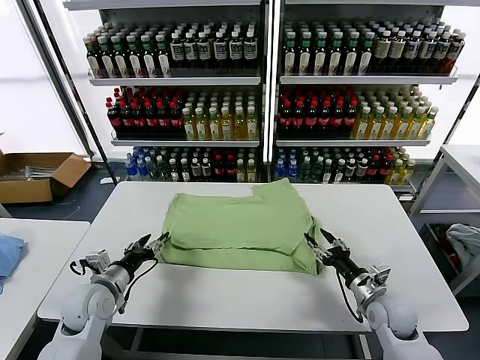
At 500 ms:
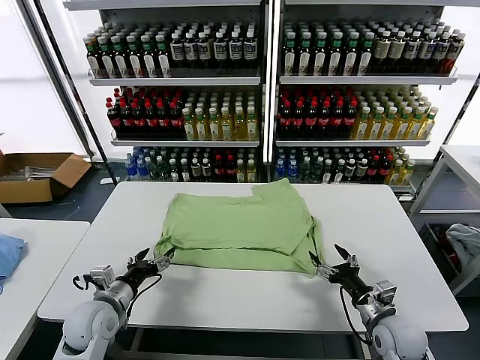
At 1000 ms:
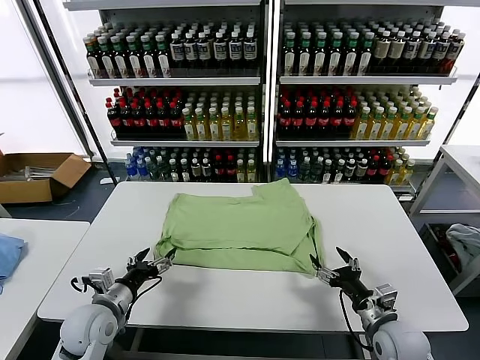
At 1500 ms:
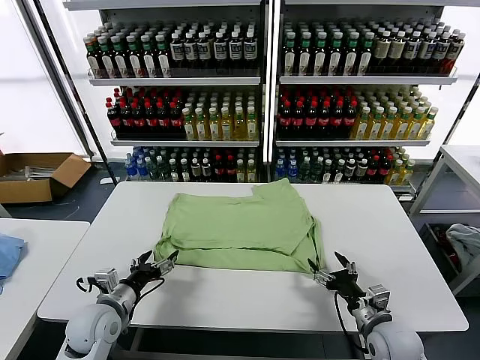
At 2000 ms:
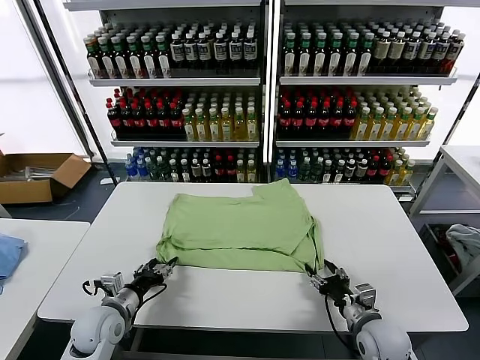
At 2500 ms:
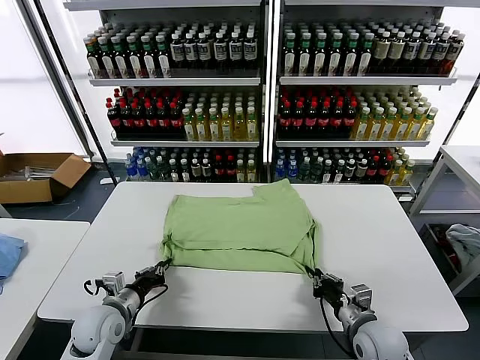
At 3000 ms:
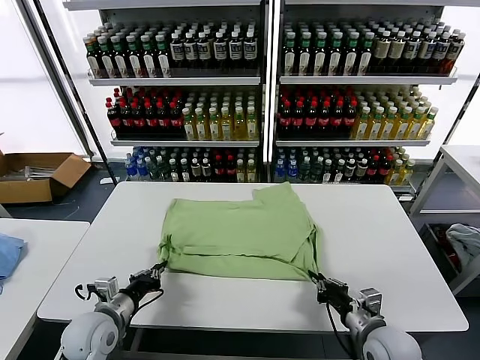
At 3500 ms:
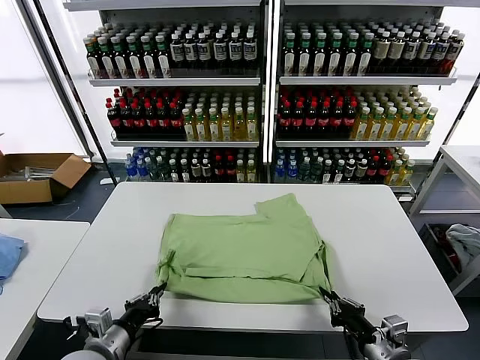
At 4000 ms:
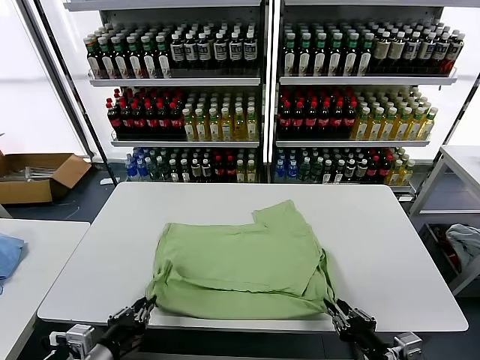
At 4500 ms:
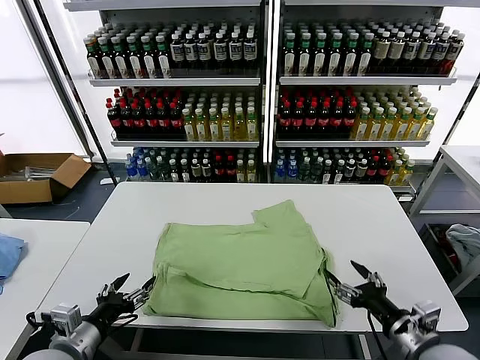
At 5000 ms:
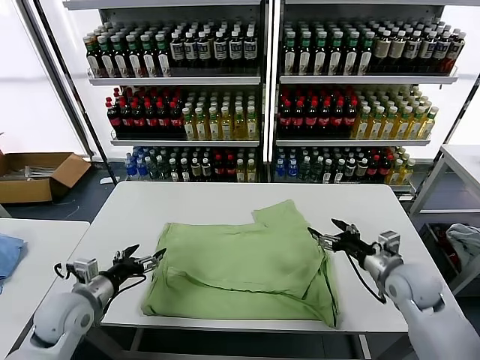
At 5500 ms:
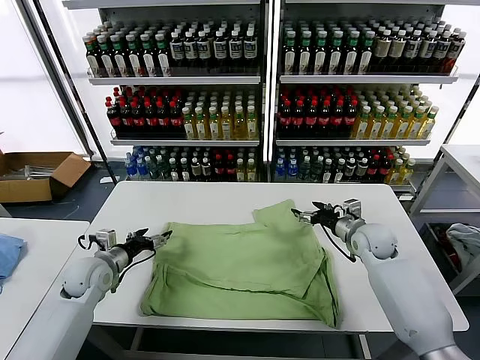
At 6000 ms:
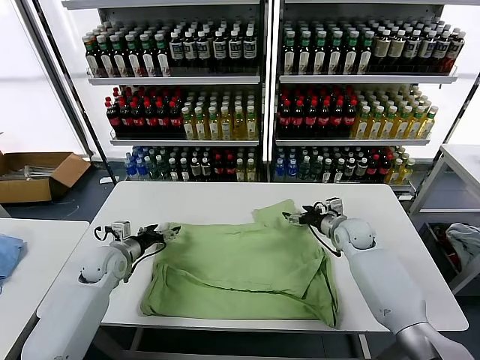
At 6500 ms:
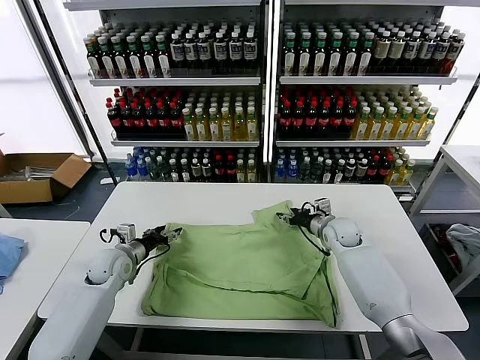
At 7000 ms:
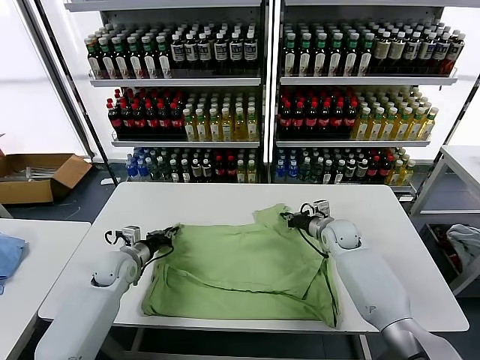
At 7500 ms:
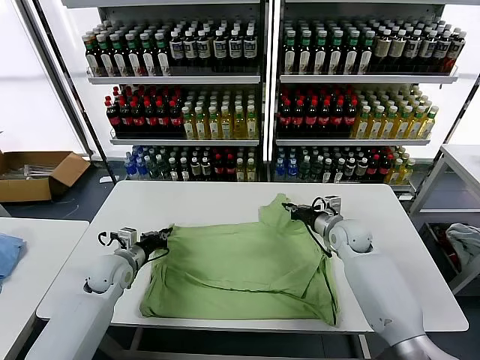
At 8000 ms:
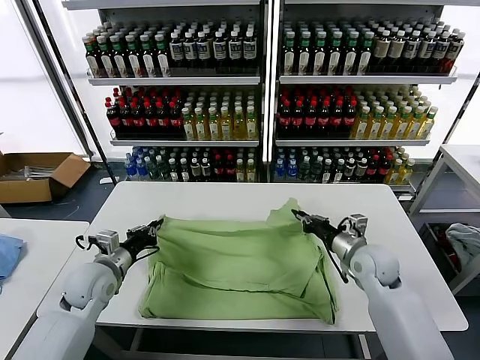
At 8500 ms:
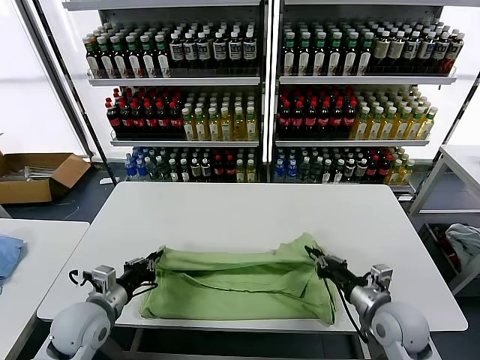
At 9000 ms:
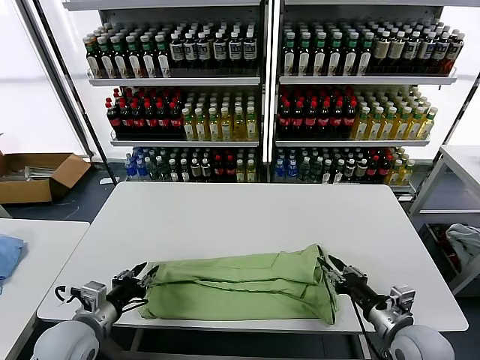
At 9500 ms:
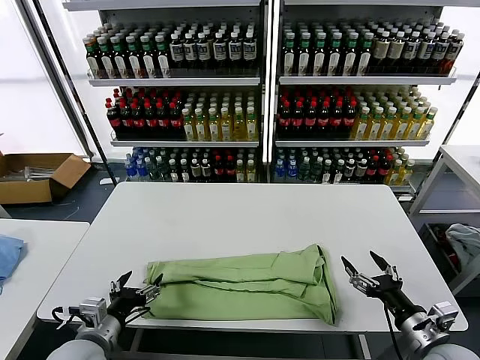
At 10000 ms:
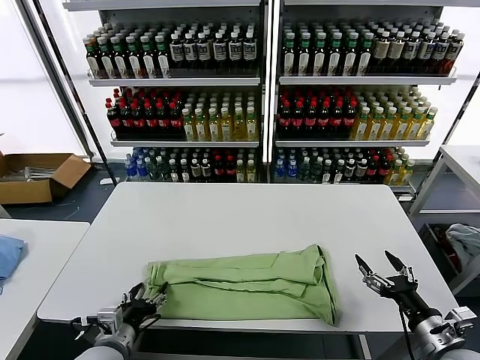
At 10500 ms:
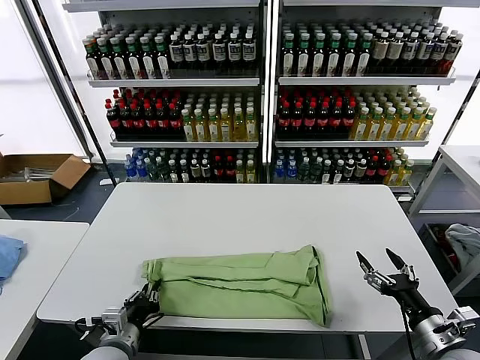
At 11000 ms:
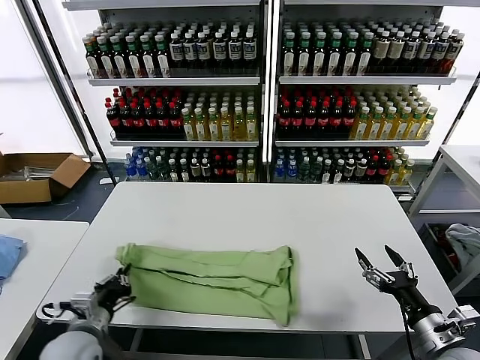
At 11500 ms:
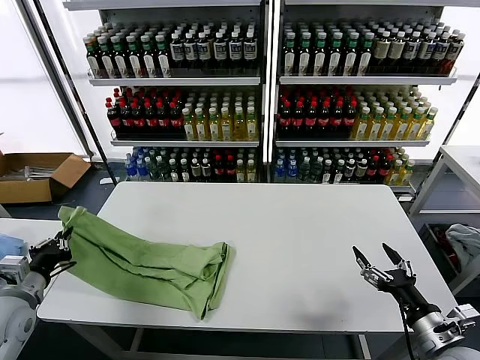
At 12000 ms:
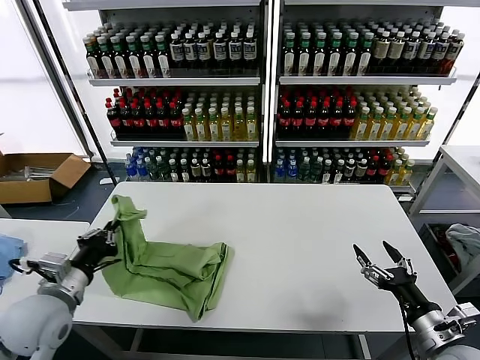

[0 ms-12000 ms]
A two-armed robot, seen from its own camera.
Task of the whole recording: fold and organize the clothes.
Step, 0 ms to 4000 ms: Drag the clothes downward with both gripper.
Step, 4500 ms to 7000 ms: use both grippers simultaneously to clamp the upper edge of the clothing fabric.
Step, 7500 ms to 9000 ms: use both grippers to drag the upper edge of the fabric backward and fold it over the lower edge.
Step, 9500 ms to 10500 ms: use the left gripper to clamp the left edge of the fabric.
0 ms to 2000 ms: The left gripper changes place by some 5 cm. Meanwhile the right gripper changes place by roughly 5 cm.
2000 ms to 4000 ms: The grippers both shift backward and upward by approximately 15 cm. The right gripper closes and opens again. Meanwhile the left gripper closes.
4000 ms to 6000 ms: Both grippers move forward, about 35 cm. The left gripper opens its fingers. Meanwhile the right gripper opens.
6000 ms to 8000 ms: The right gripper is displaced backward by about 15 cm, and closes its fingers; the left gripper moves backward, some 10 cm, and closes.
8000 ms to 10000 ms: The right gripper is displaced backward and to the right by some 20 cm, and opens up; the left gripper travels backward by roughly 15 cm, and opens.
10000 ms to 12000 ms: The left gripper heads upward and to the left, covering roughly 15 cm, and closes its fingers.

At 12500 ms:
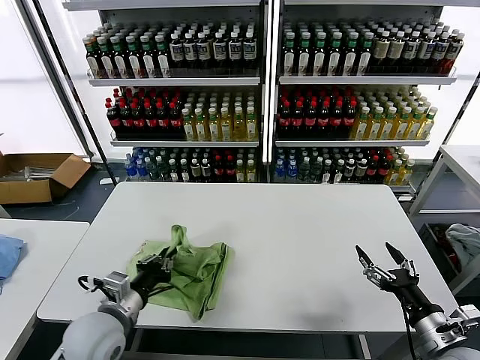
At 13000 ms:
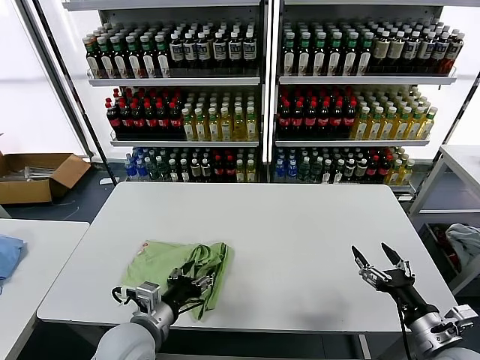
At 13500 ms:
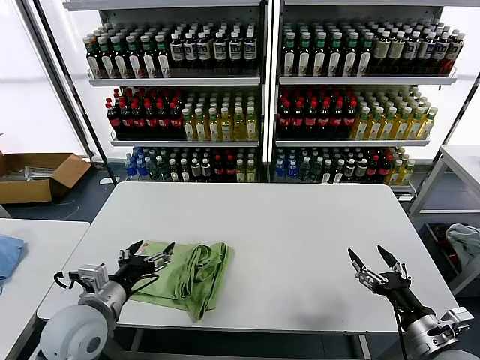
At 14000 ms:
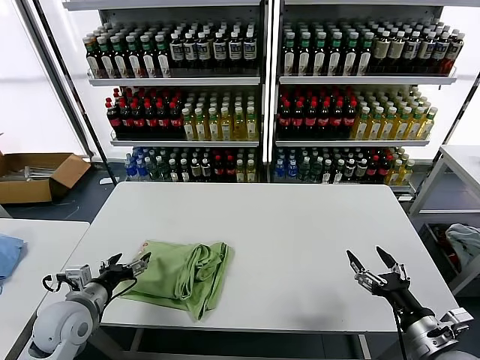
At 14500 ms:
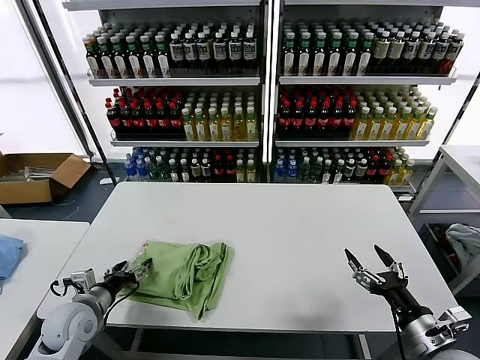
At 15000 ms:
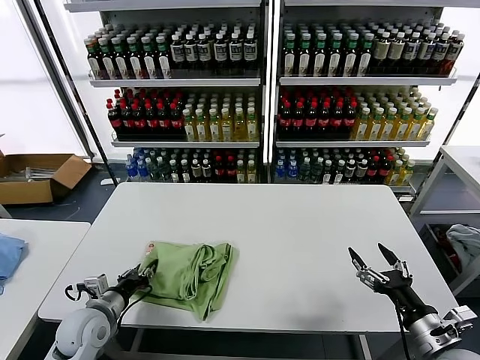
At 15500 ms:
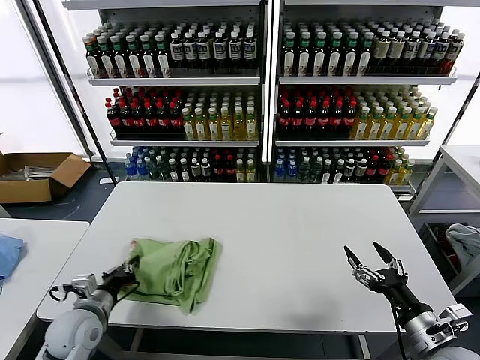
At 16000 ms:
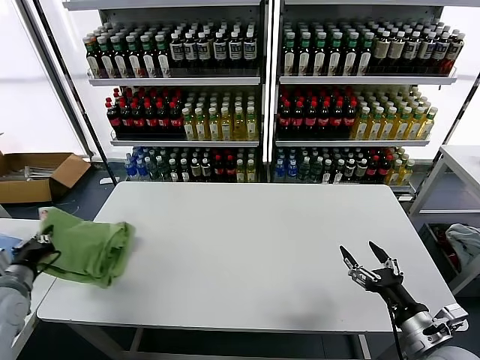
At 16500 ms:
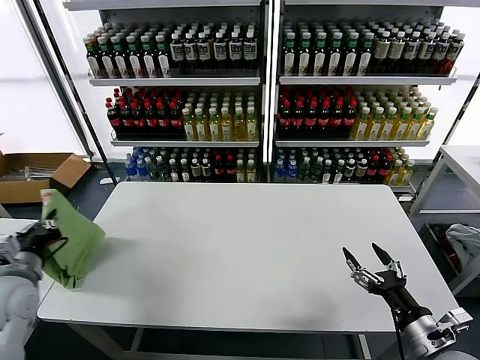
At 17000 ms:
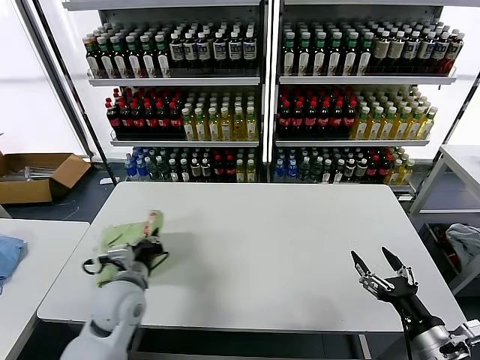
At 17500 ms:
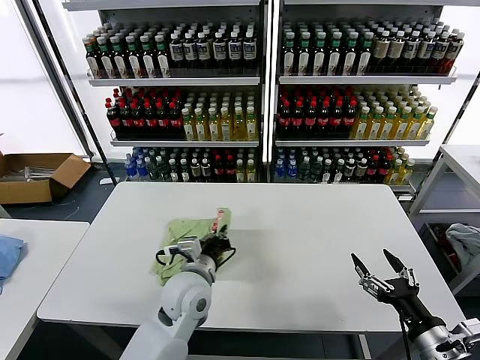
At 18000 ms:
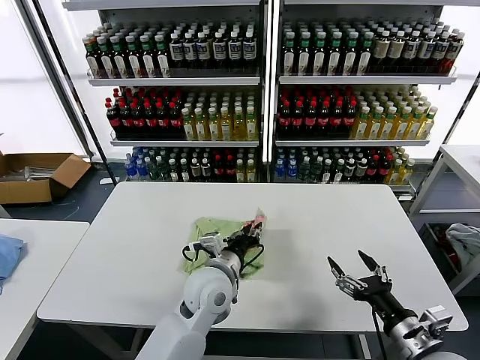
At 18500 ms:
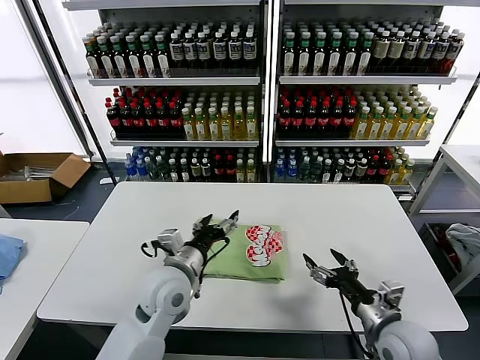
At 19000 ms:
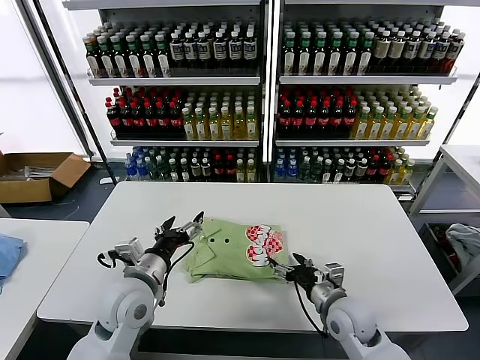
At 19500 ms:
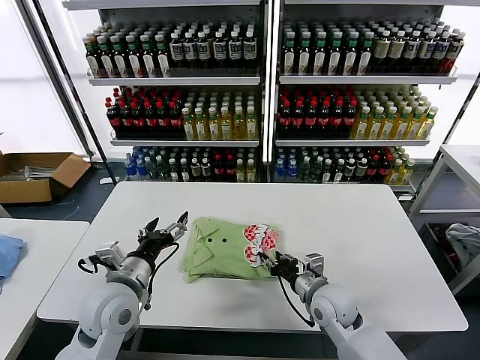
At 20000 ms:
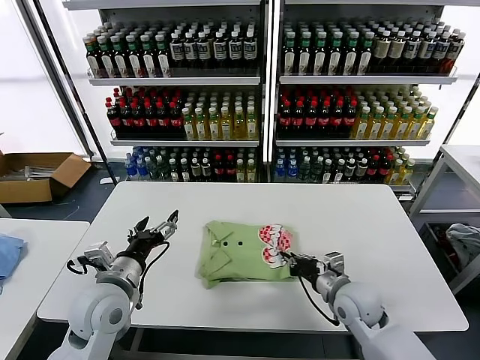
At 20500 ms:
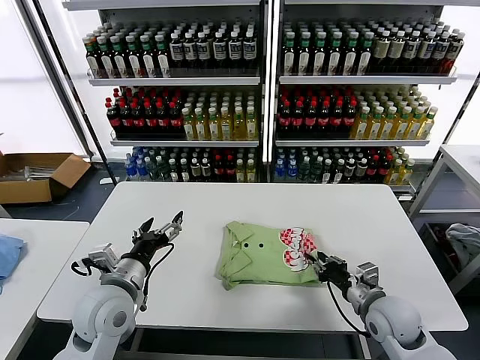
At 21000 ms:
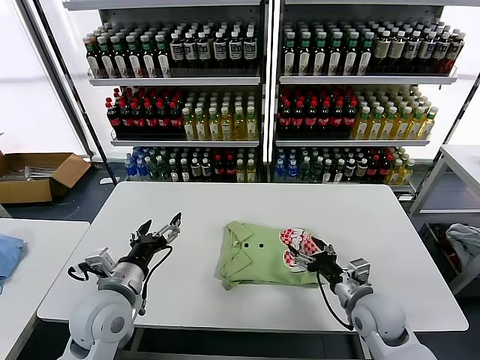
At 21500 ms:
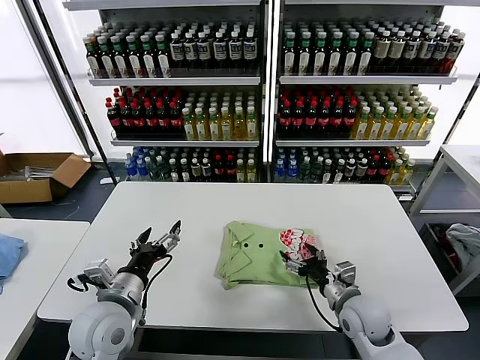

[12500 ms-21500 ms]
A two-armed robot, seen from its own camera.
Task of the whole recording: fold and organize the clothes.
Step, 13000 ms to 18000 ms: Flip the folded clothes over with left gripper.
12500 ms to 14500 ms: The left gripper shifts roughly 10 cm to the left and downward, and opens its fingers.
14500 ms to 17000 ms: The left gripper is displaced to the right and upward by approximately 10 cm, and closes.
17000 ms to 19500 ms: The left gripper moves about 20 cm to the right and comes back, and opens up. The right gripper is displaced forward and to the left by roughly 25 cm, and closes.
19500 ms to 21500 ms: The right gripper heads to the right, covering about 5 cm, and opens up.

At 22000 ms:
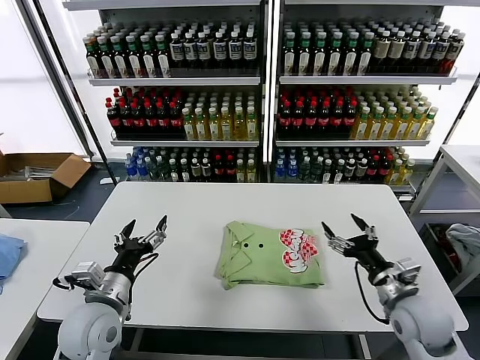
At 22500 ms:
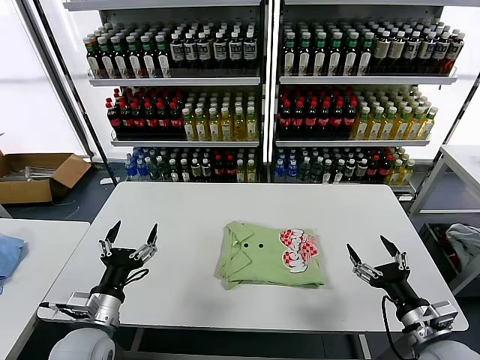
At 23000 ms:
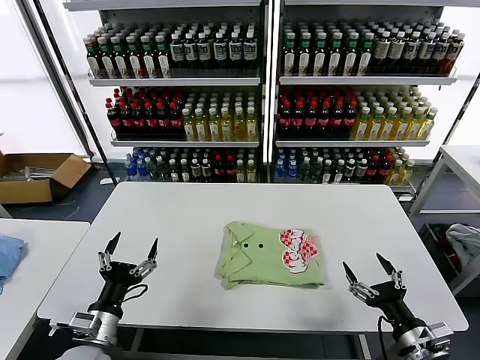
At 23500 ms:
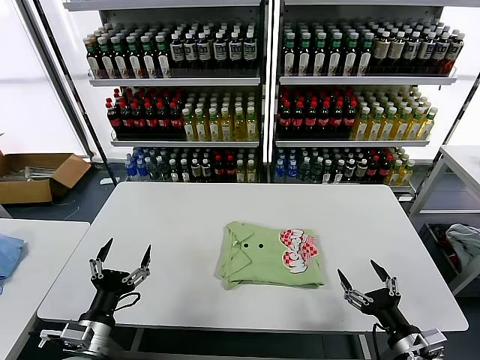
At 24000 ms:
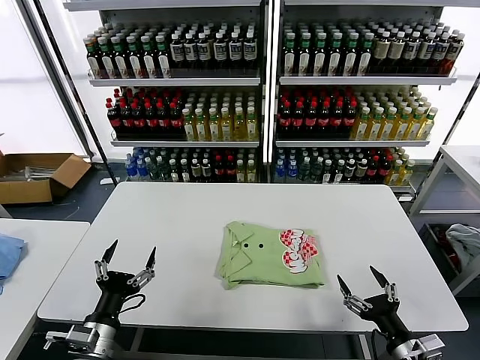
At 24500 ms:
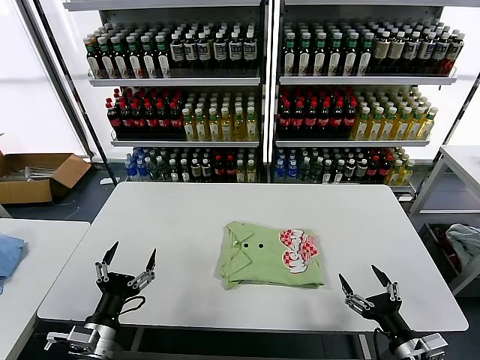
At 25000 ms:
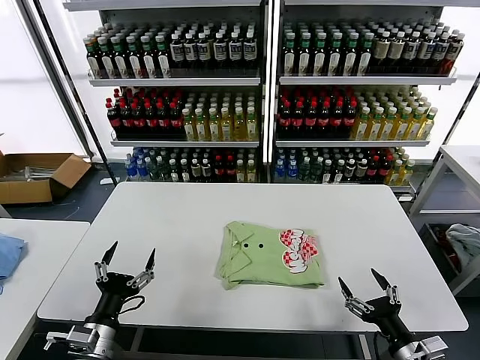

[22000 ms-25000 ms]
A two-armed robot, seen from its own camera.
Task of the whole recording: fold and organize the clothes.
22000 ms to 23500 ms: The left gripper goes approximately 10 cm backward and downward; the right gripper moves backward, approximately 10 cm.
23500 ms to 25000 ms: The grippers move only a little.
